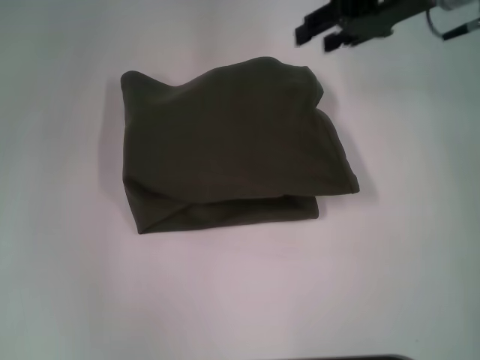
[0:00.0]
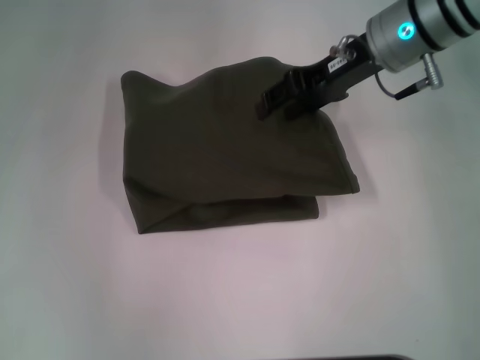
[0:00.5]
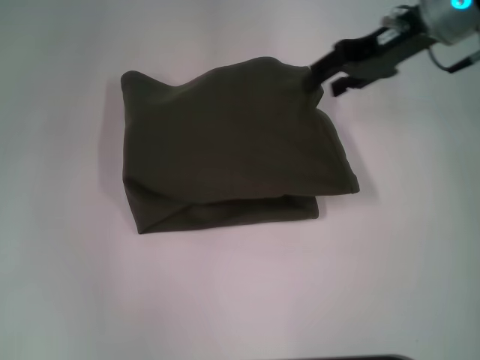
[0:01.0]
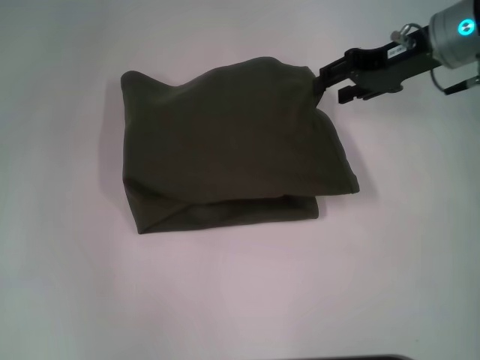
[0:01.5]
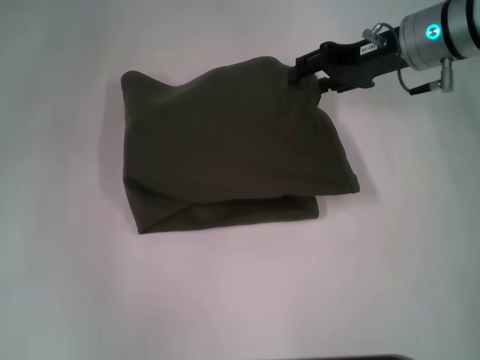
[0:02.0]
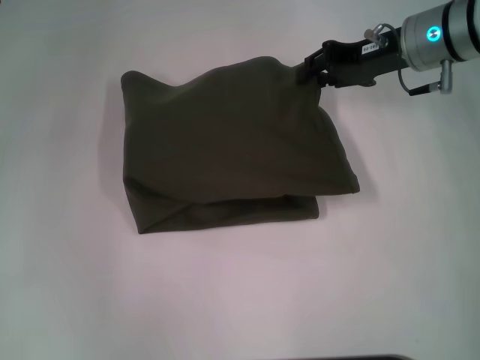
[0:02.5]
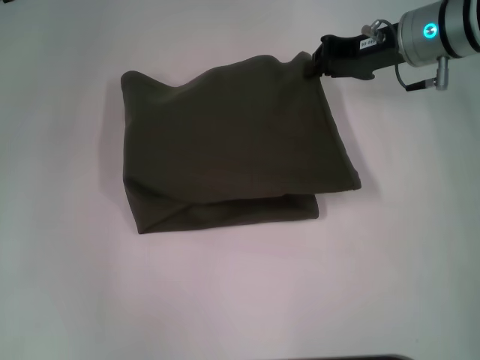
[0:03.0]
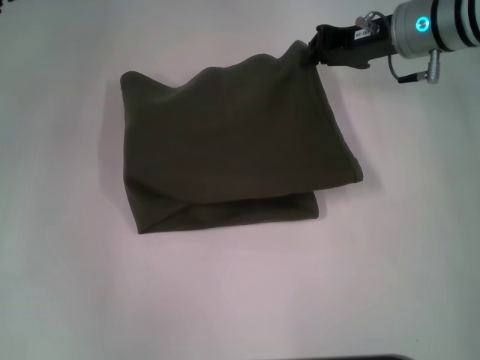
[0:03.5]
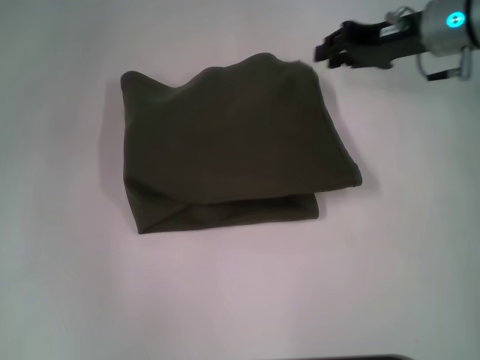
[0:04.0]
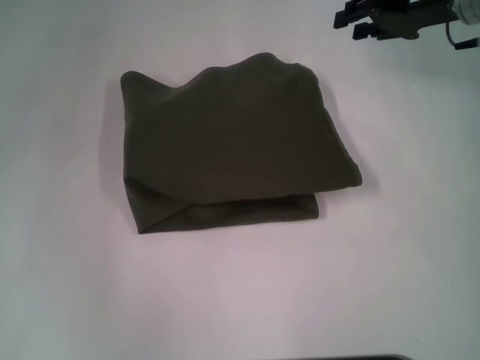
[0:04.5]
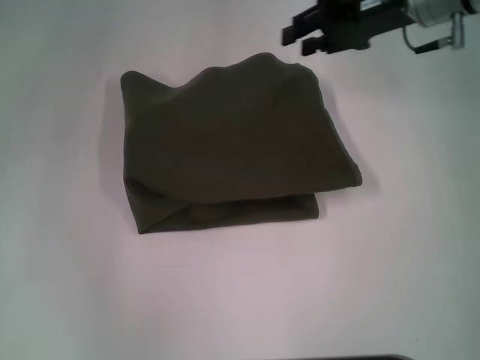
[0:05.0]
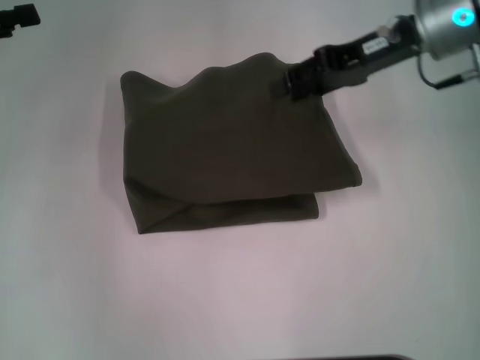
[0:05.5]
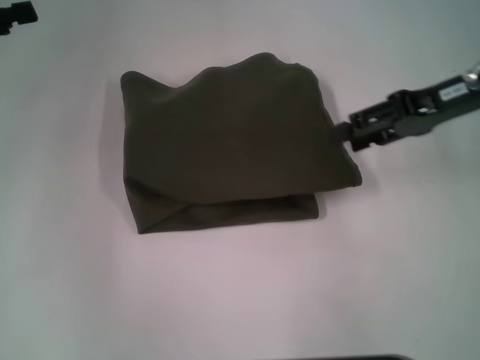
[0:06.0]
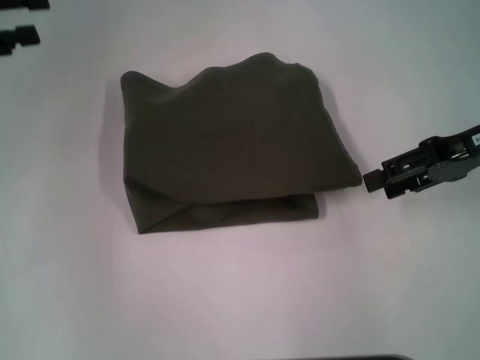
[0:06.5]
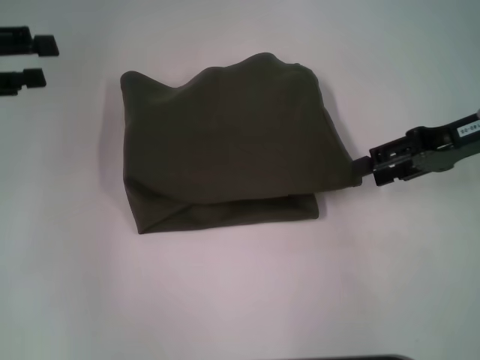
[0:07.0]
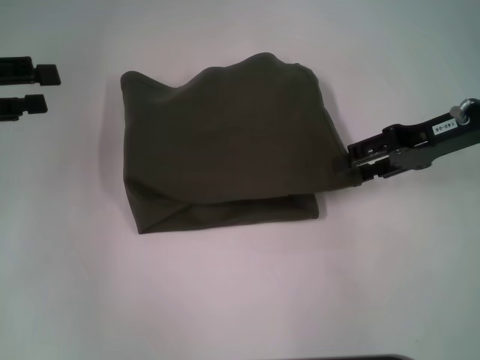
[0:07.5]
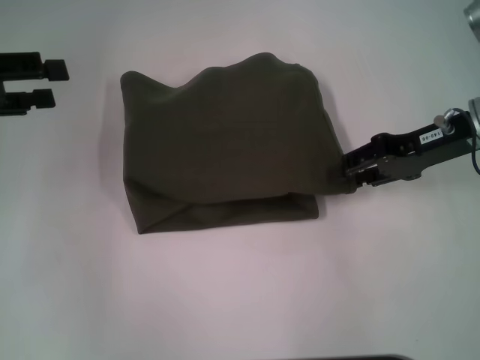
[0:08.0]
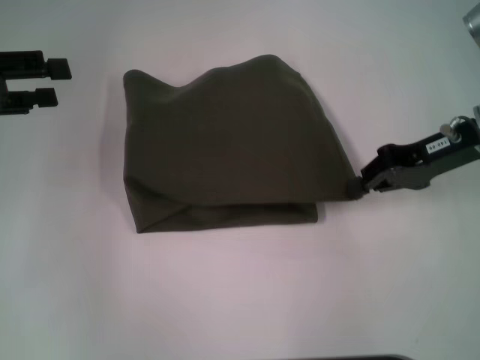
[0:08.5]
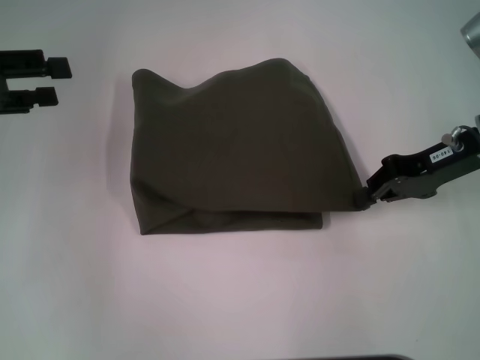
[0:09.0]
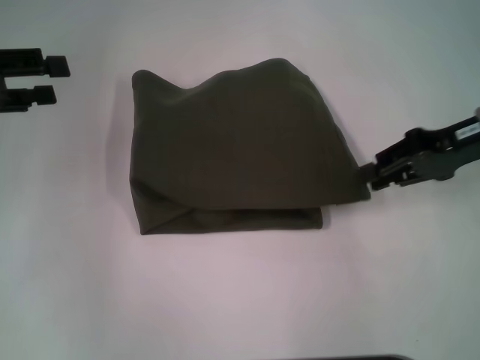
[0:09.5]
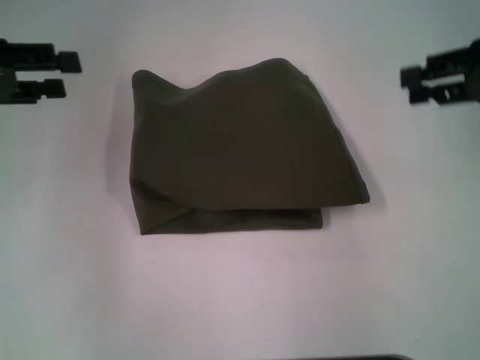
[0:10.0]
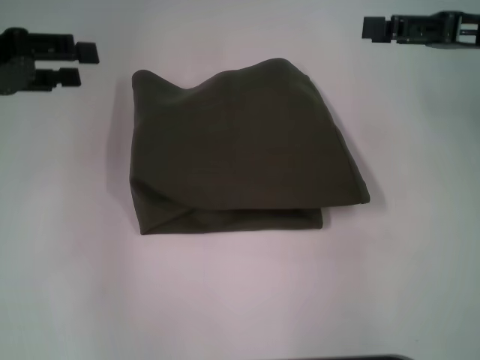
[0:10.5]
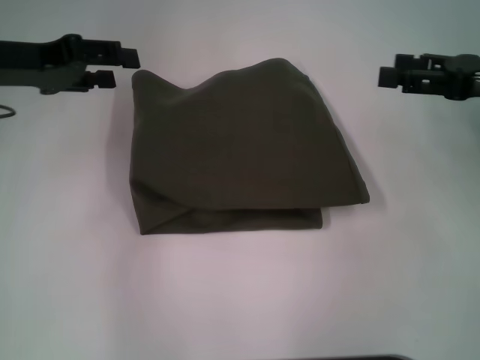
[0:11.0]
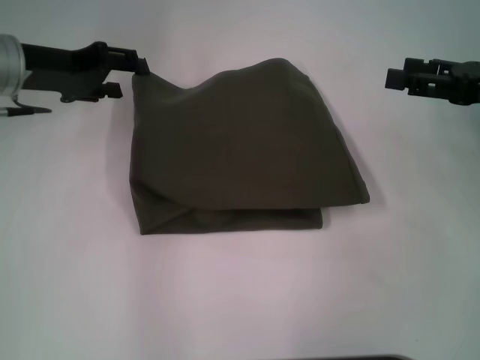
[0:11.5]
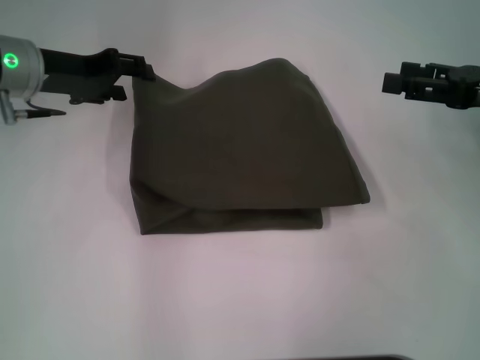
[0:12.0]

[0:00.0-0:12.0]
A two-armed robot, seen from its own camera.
0.0 to 2.0 s: The right gripper goes some 5 cm downward.
2.0 to 4.0 s: The right gripper closes up.
4.0 to 6.0 s: The right gripper heads backward, covering roughly 5 cm, and opens its fingers.
6.0 to 8.0 s: The right gripper changes place by about 5 cm.
8.0 to 10.0 s: The right gripper moves upward and to the right, about 10 cm, and closes, then opens again.
10.0 to 12.0 s: The left gripper moves to the right, forward and downward, approximately 15 cm. Meanwhile the right gripper goes approximately 5 cm downward.

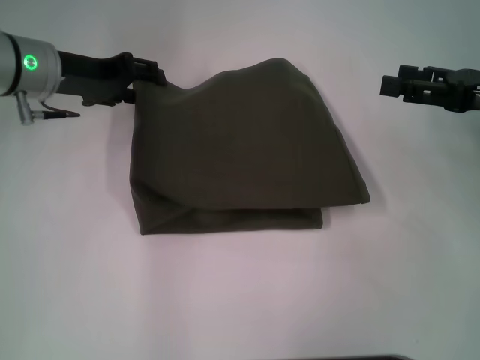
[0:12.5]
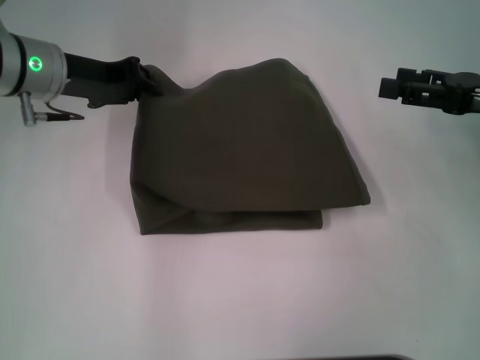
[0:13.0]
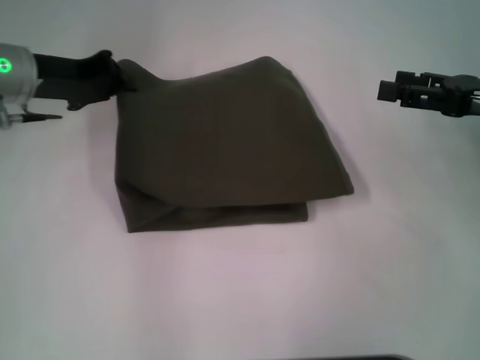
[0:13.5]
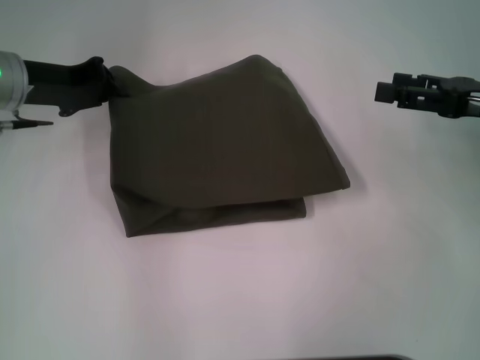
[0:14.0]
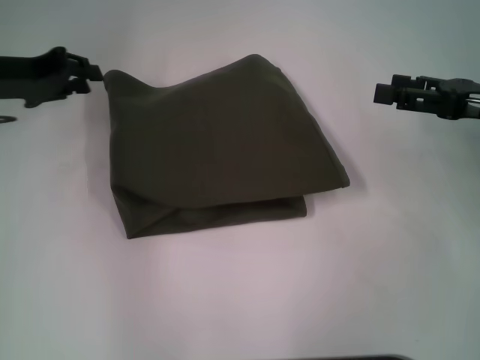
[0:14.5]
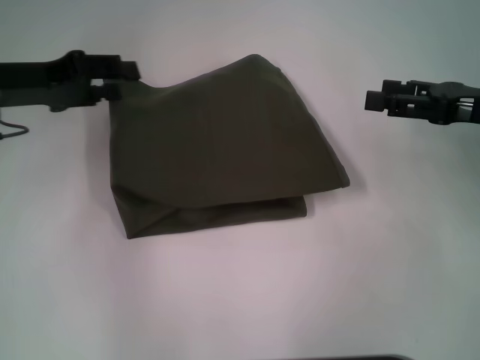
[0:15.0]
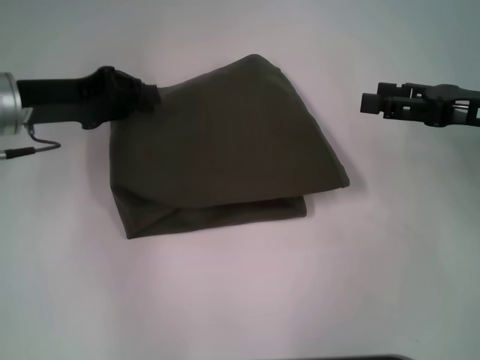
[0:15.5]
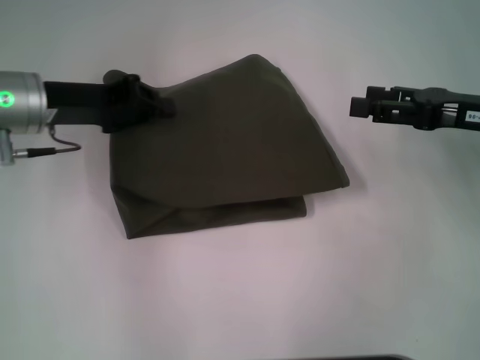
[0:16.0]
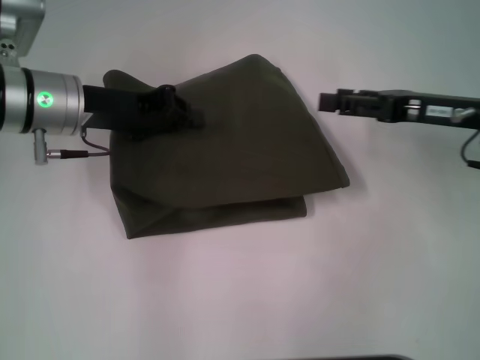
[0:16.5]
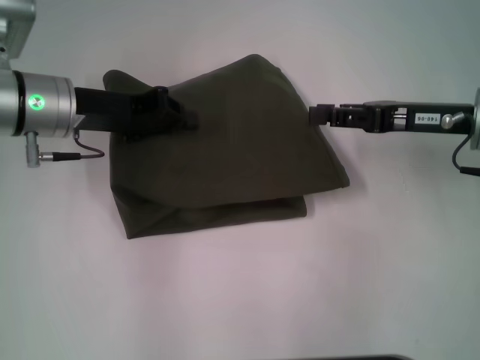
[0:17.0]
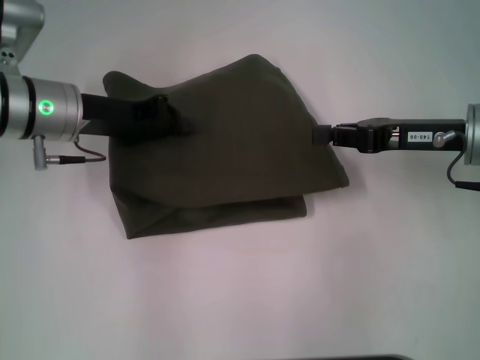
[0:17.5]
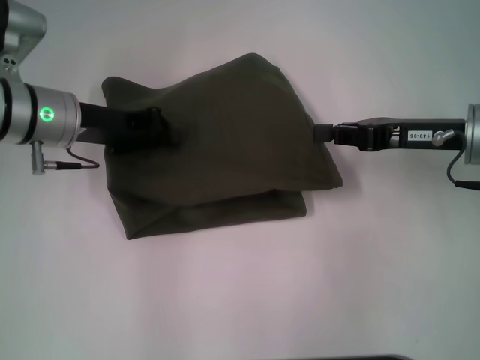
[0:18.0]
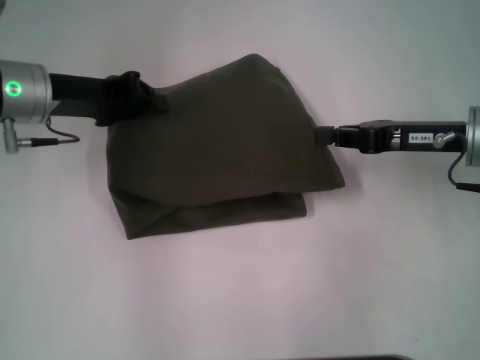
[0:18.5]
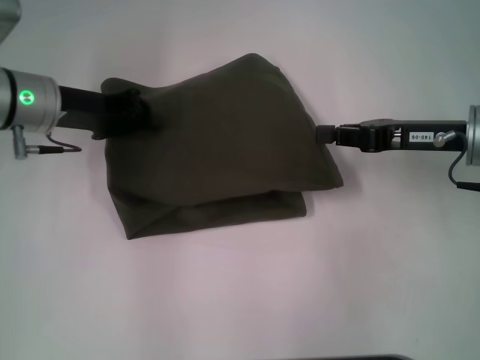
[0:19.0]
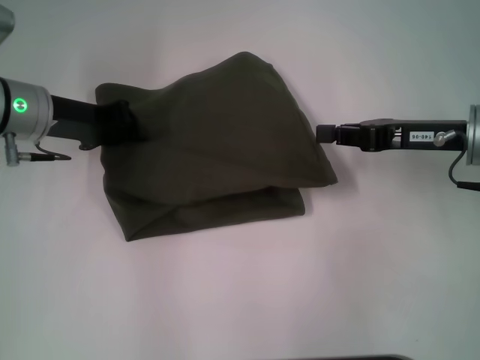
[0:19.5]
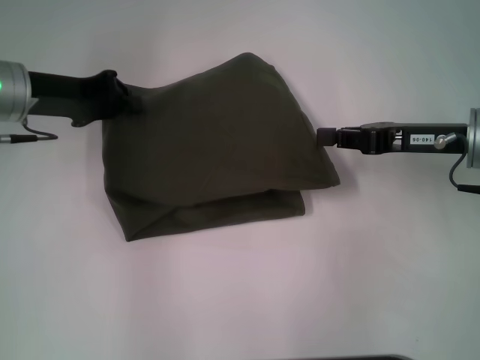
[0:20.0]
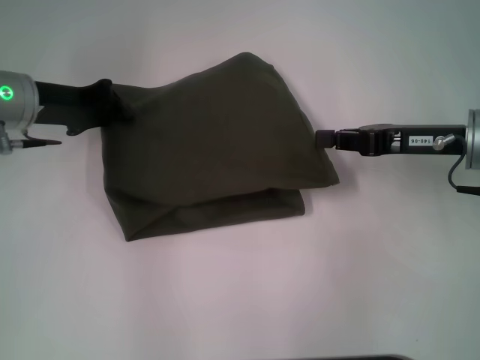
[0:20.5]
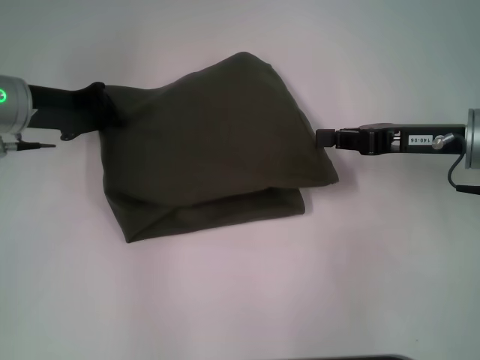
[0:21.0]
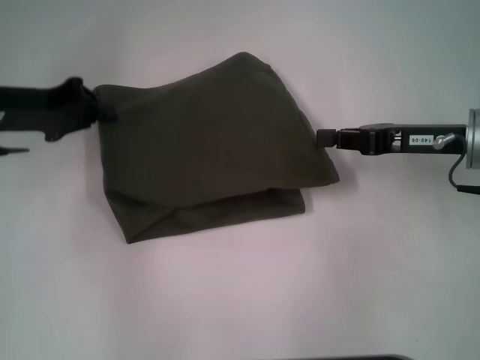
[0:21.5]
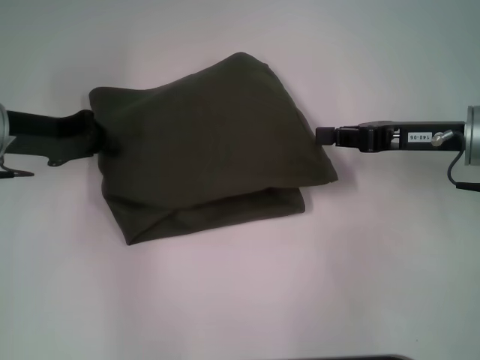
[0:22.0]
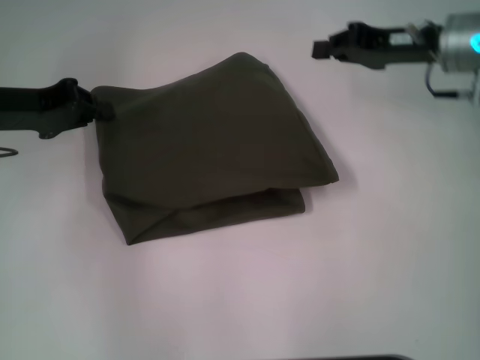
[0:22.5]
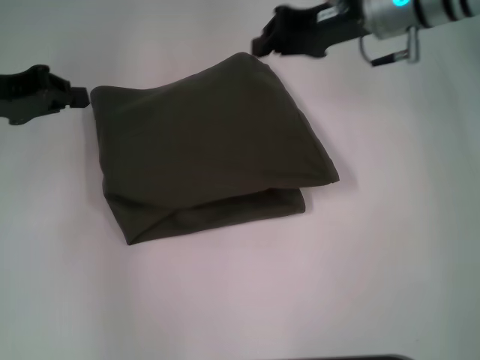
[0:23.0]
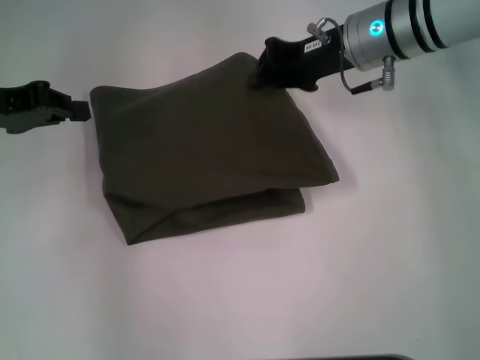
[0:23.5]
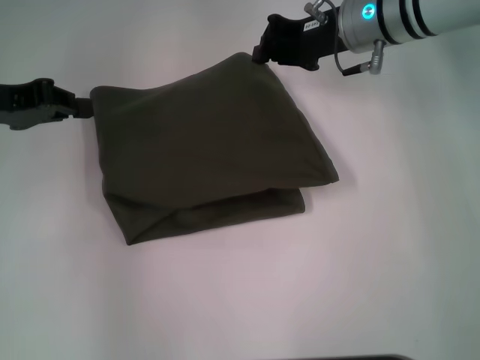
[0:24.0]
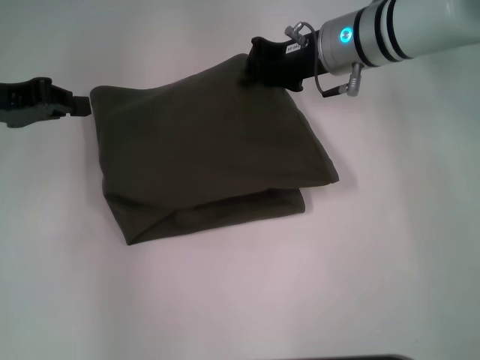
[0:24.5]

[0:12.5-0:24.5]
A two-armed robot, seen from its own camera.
12.5 to 14.5 s: The left gripper shifts about 5 cm to the left, and closes.
14.5 to 16.5 s: The left gripper goes roughly 10 cm to the right, and opens, then closes once more, while the right gripper moves approximately 5 cm.
16.5 to 18.5 s: The right gripper closes its fingers.
18.5 to 20.5 s: The grippers stay close to where they were, moving slightly.
20.5 to 22.5 s: The right gripper heads forward, covering about 10 cm. The left gripper ends up roughly 5 cm from where it was.
22.5 to 24.5 s: The right gripper moves to the left, about 10 cm.

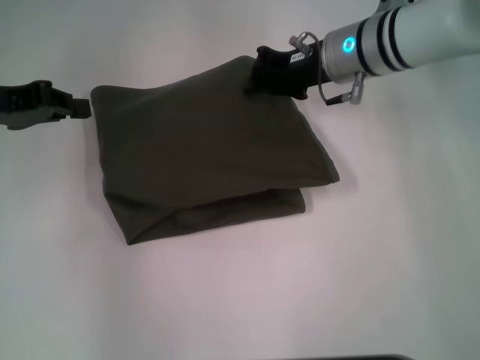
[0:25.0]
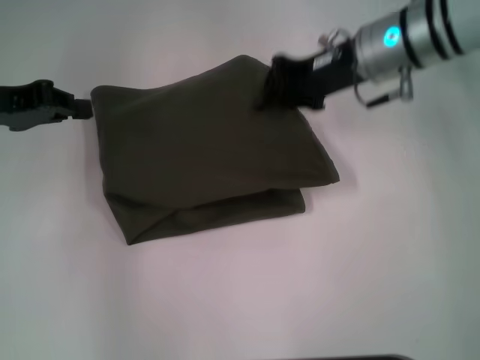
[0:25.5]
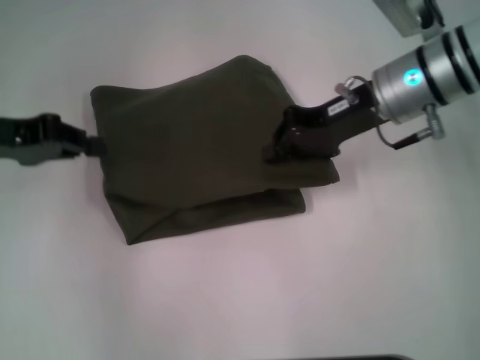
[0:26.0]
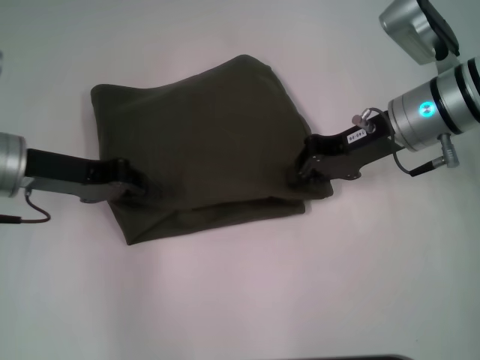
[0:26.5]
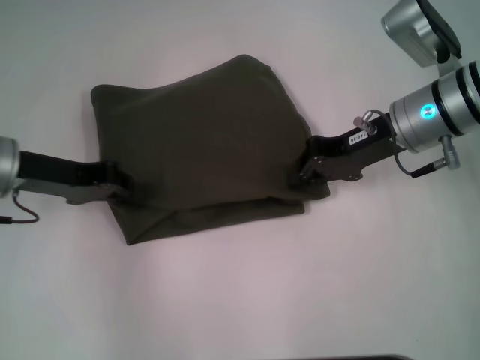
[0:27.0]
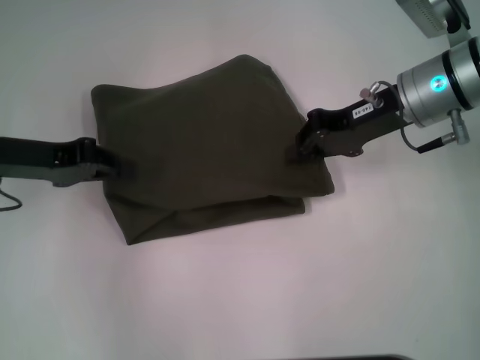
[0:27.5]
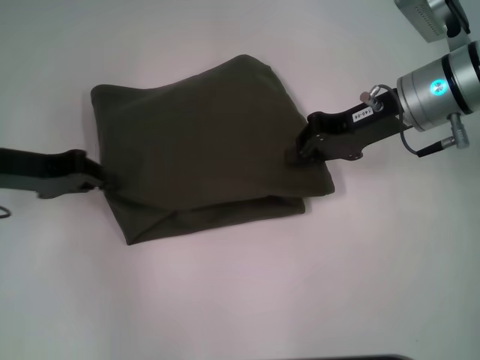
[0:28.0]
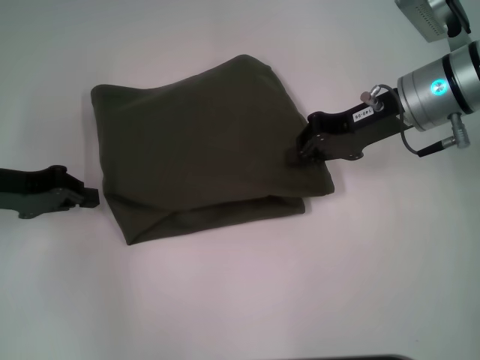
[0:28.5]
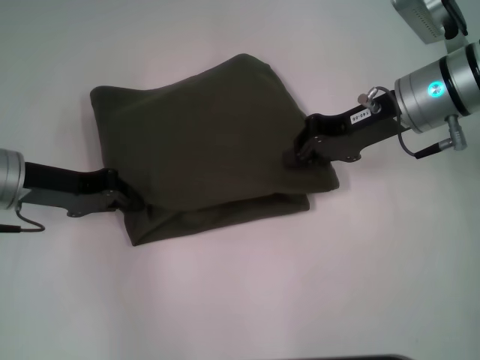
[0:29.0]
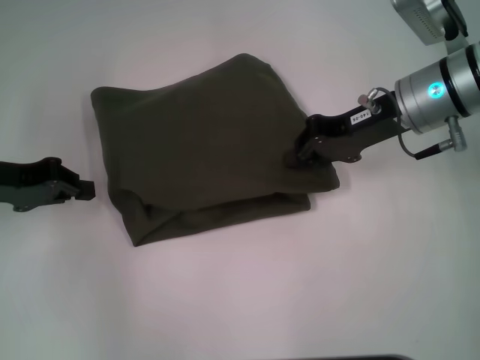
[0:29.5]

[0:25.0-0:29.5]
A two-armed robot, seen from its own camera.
25.0 to 27.0 s: The right gripper moves backward and to the right, approximately 10 cm; the left gripper moves roughly 5 cm.
27.0 to 29.5 s: The left gripper moves left and right over approximately 5 cm, changing direction 2 times.
